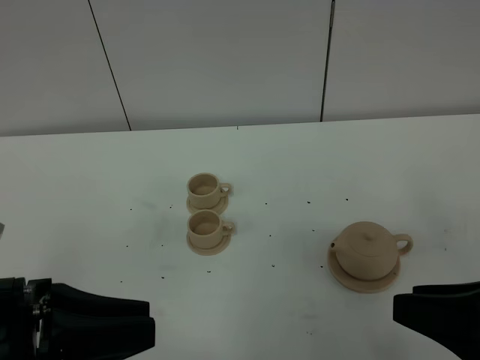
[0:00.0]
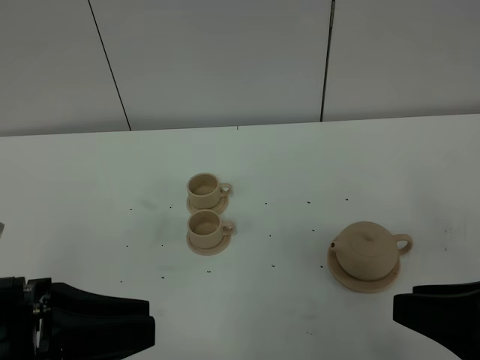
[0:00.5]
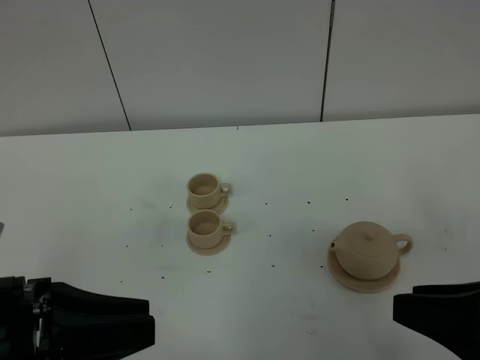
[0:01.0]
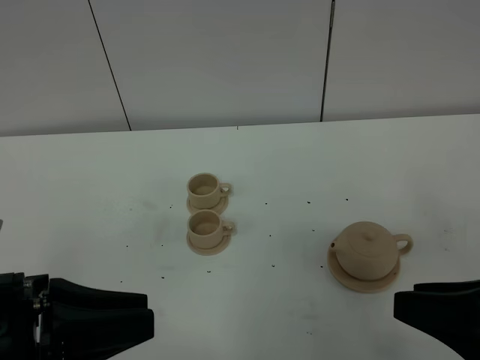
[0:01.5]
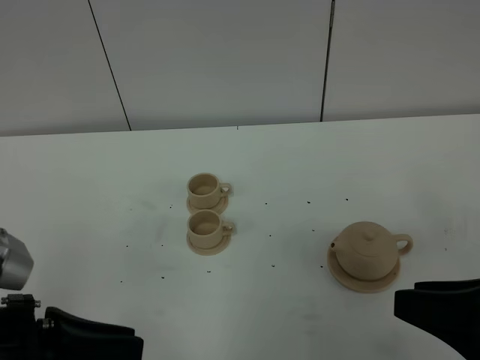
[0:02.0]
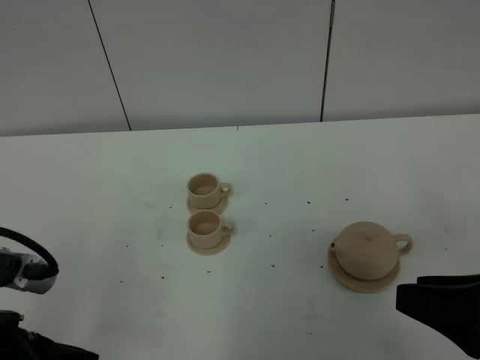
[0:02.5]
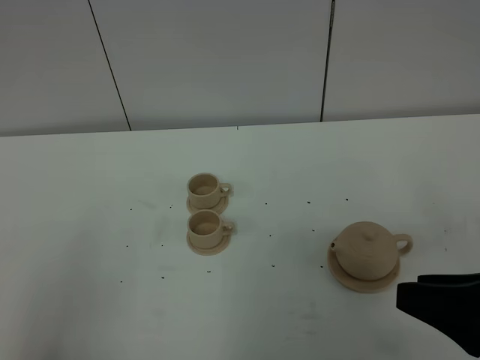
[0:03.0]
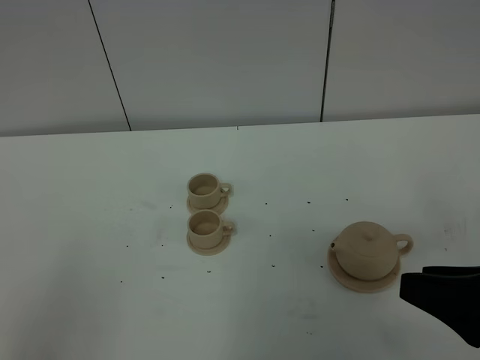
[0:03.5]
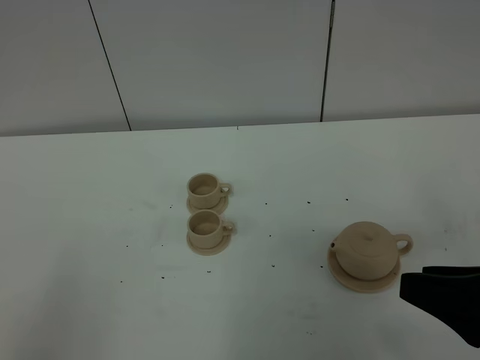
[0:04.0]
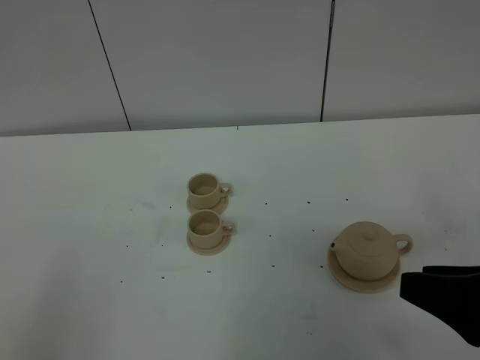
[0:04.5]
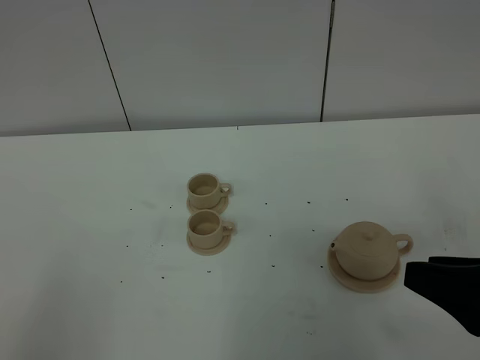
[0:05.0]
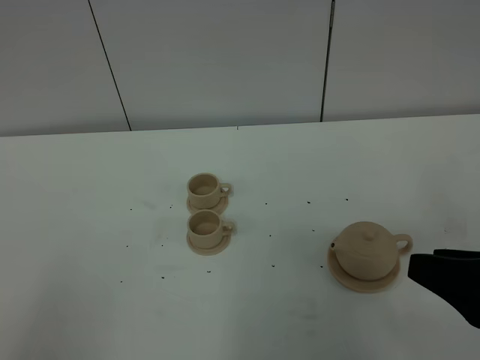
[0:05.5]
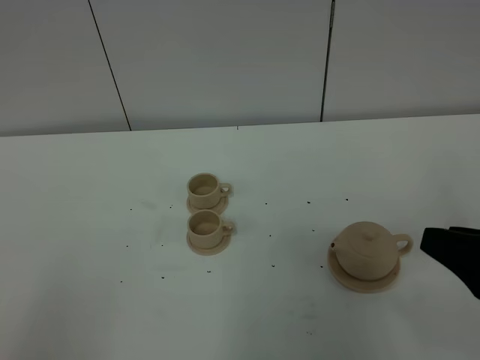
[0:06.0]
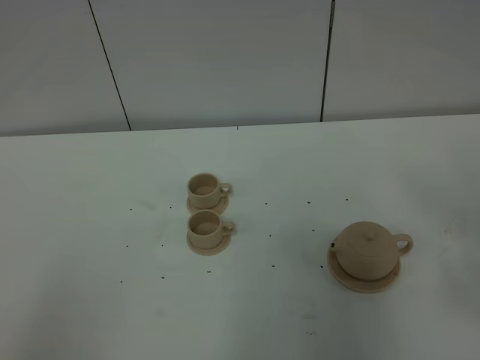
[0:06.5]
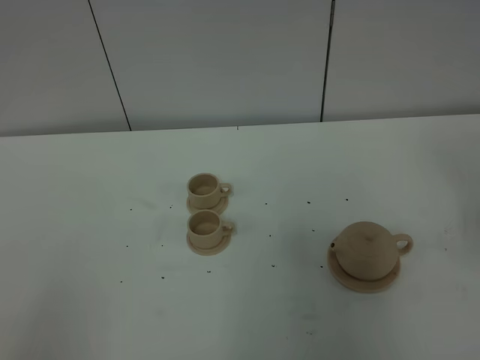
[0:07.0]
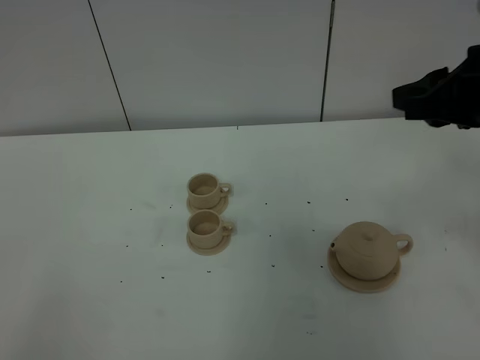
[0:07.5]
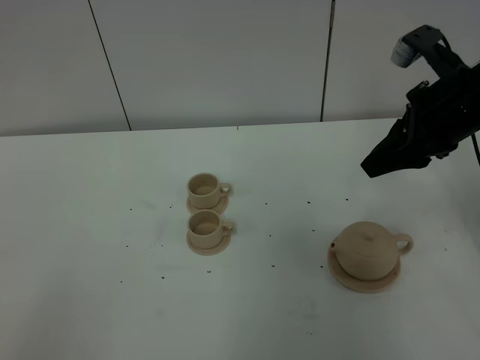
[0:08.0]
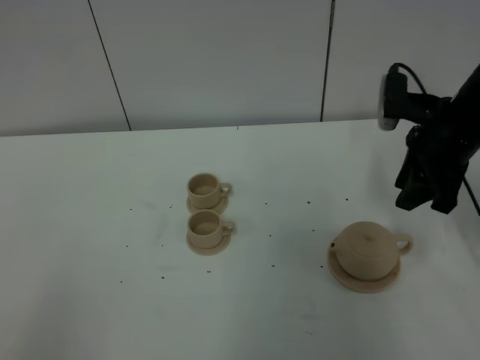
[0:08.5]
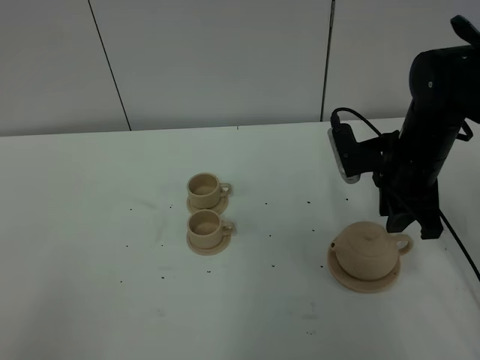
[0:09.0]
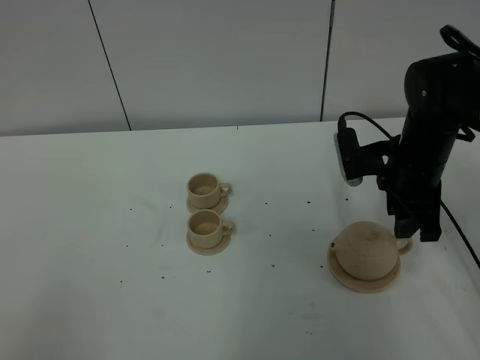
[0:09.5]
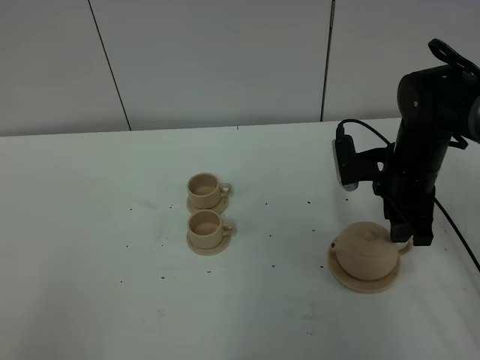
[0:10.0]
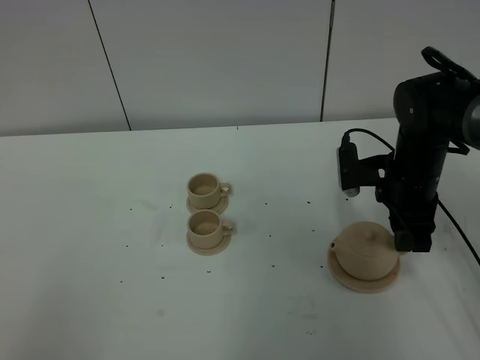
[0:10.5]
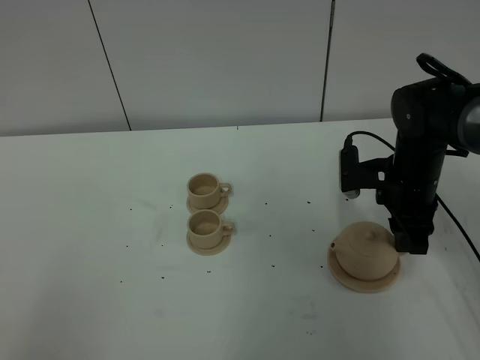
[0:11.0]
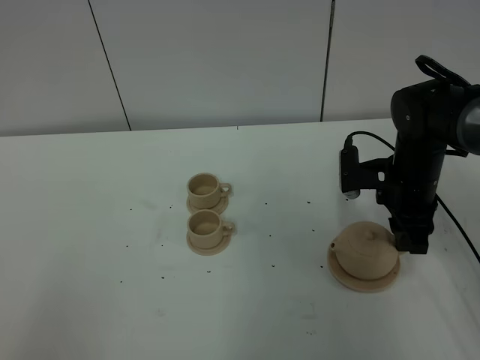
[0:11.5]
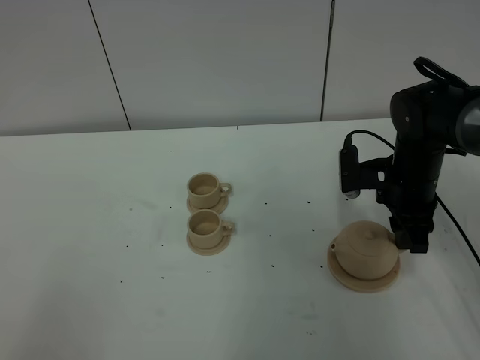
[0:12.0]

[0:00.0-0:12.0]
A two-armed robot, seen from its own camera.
Task of the whole recording: grasp the brown teapot and pour the tea into the two brown teacups one by one, put the brown teapot back in its original place.
0:00.0 to 0:02.0: The left gripper closes its fingers.
0:02.0 to 0:04.0: The left gripper is displaced backward and to the left by about 10 cm, and closes its fingers.
0:04.0 to 0:06.0: The grippers move only a little.
0:06.0 to 0:08.0: The right gripper is displaced forward by roughly 20 cm.
0:08.0 to 0:10.0: The right gripper shifts approximately 10 cm downward.
0:10.0 to 0:12.0: There are only small adjustments of the grippers.

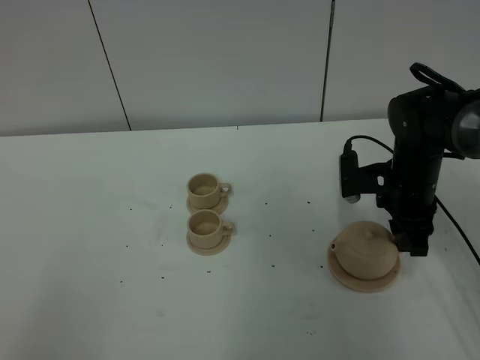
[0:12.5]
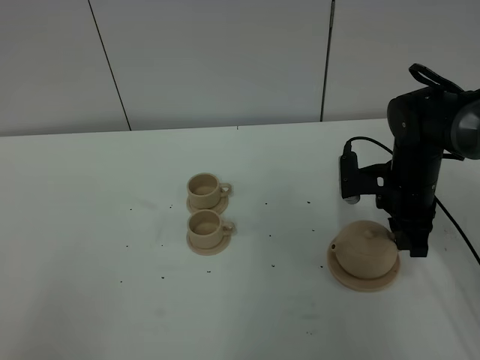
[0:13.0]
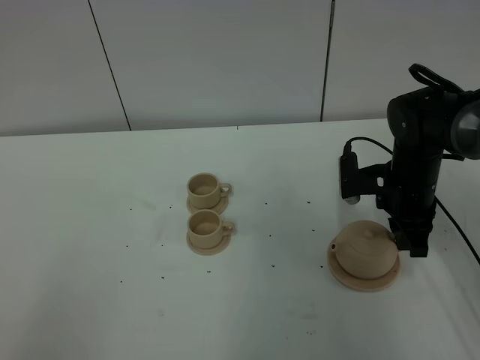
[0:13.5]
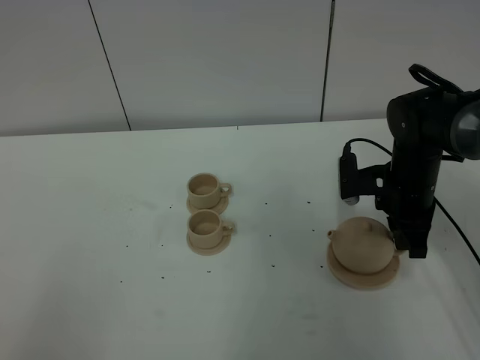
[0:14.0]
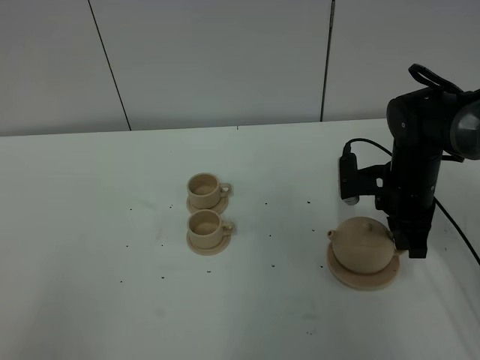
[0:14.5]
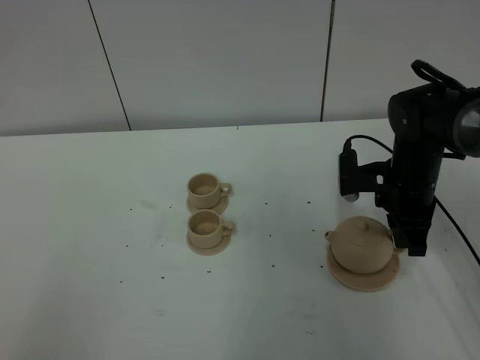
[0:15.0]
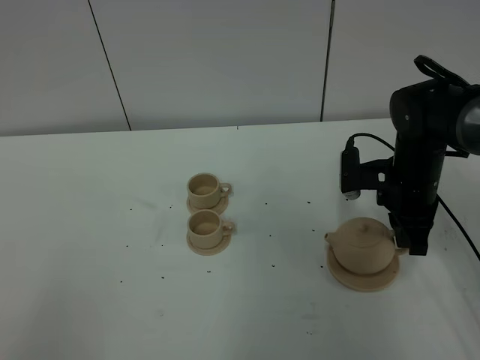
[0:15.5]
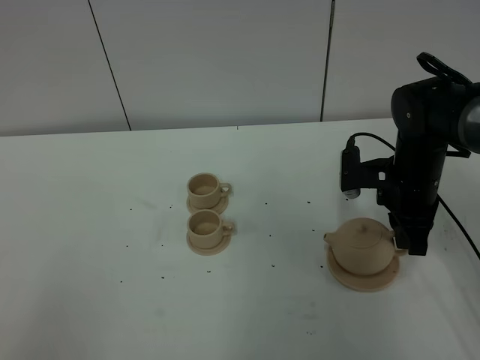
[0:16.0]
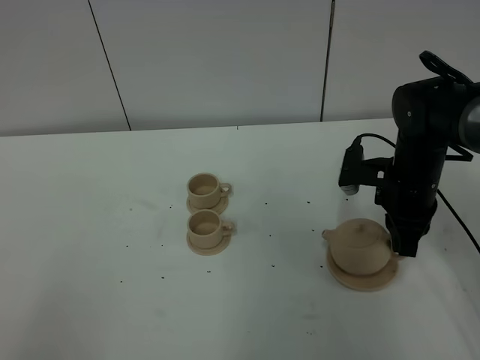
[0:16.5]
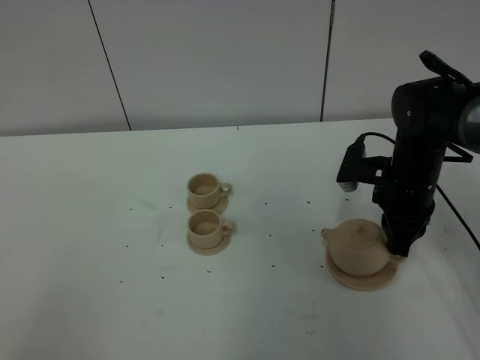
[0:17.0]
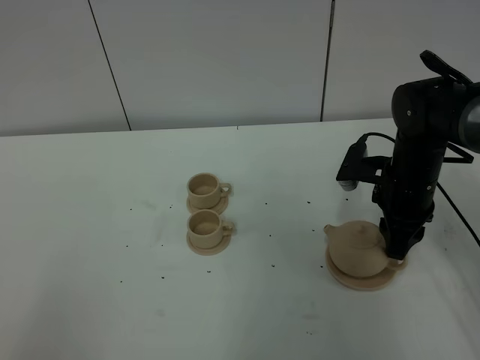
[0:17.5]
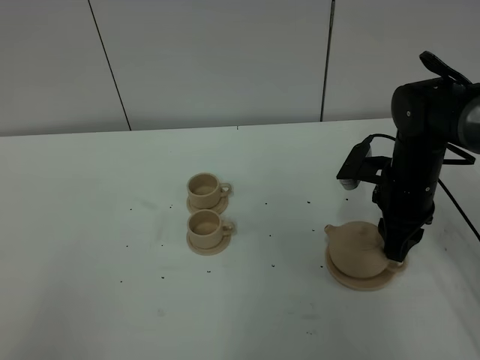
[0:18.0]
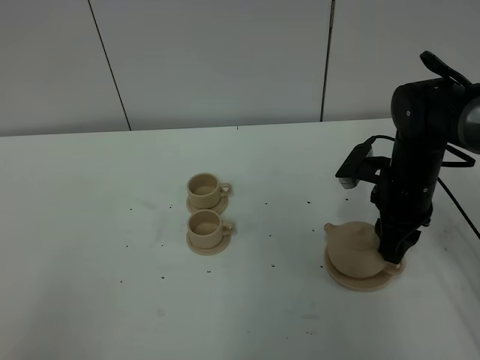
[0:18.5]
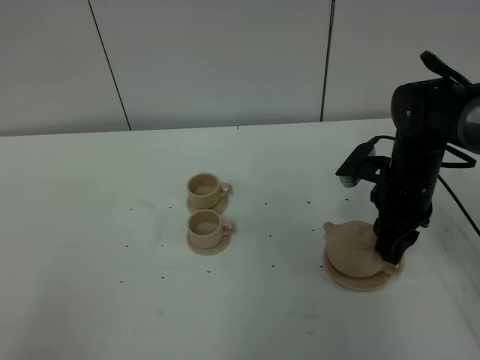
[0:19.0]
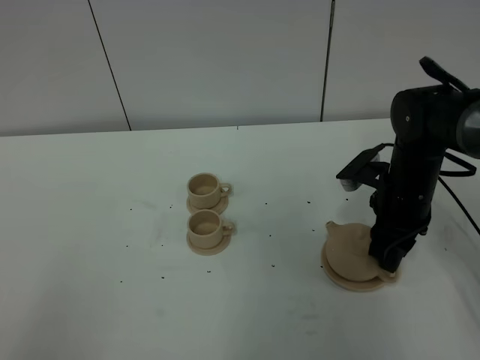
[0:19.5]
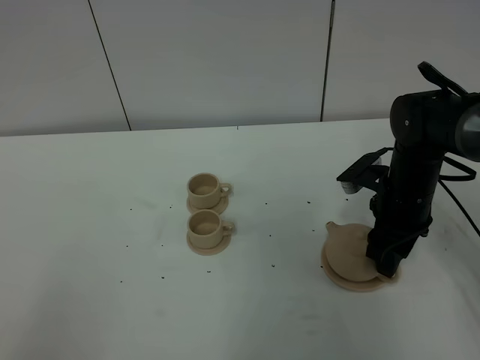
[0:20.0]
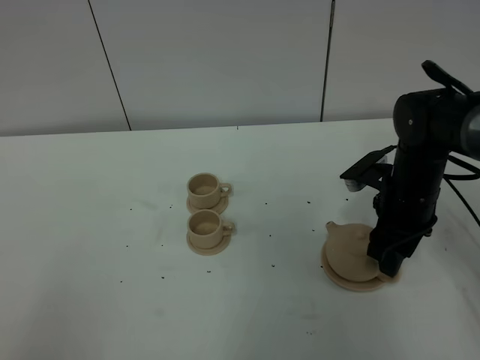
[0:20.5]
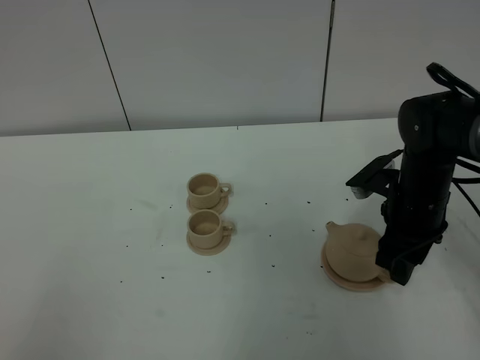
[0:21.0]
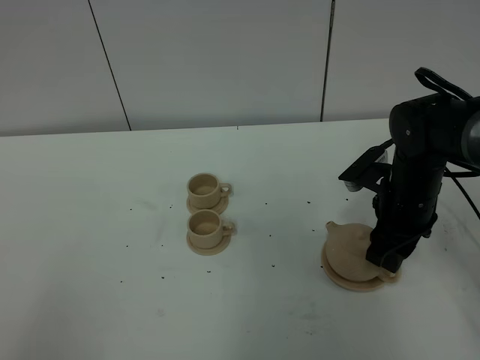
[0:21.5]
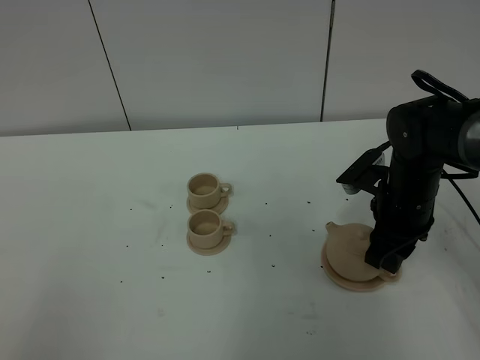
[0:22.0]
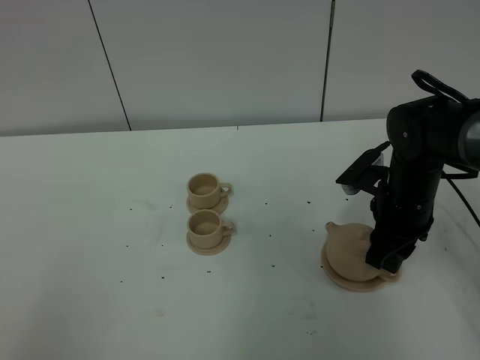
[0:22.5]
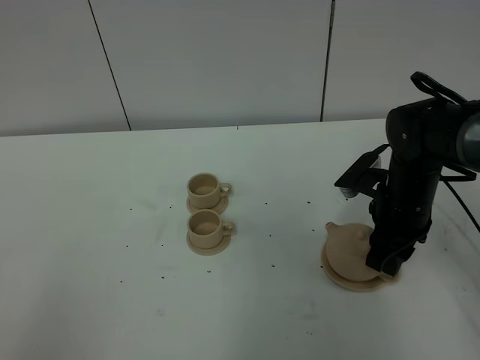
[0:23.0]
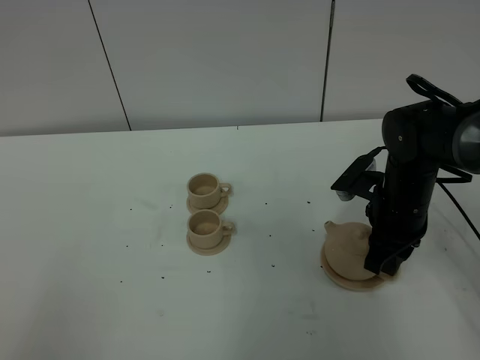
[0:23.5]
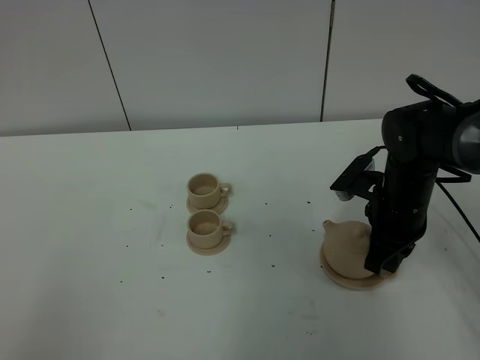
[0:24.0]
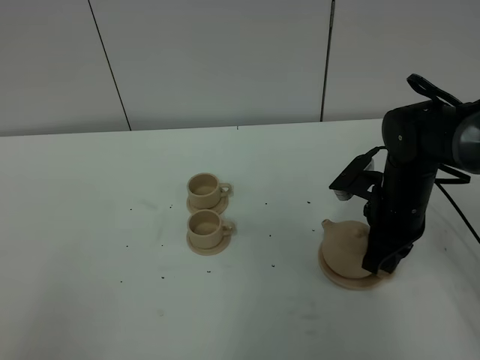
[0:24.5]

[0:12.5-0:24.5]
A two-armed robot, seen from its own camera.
Task of the whole recording: grasp the brown teapot and pour the tea into the two brown teacups one by one, put the brown teapot back in its original place.
0:12.5 to 0:14.5: The right gripper closes its fingers.
0:14.5 to 0:16.5: The grippers move only a little.
0:16.5 to 0:18.5: The right gripper opens up.
0:18.5 to 0:22.5: The grippers stay close to where they were, moving slightly.
0:22.5 to 0:24.5: The right gripper closes up.

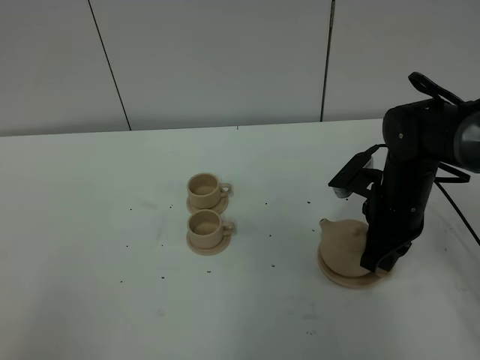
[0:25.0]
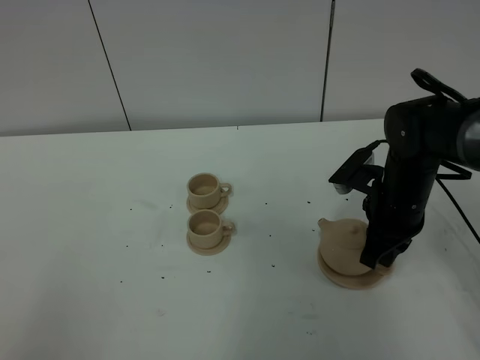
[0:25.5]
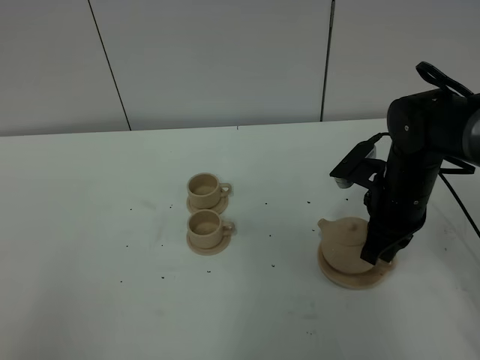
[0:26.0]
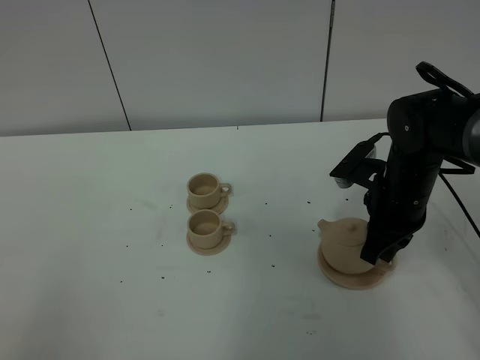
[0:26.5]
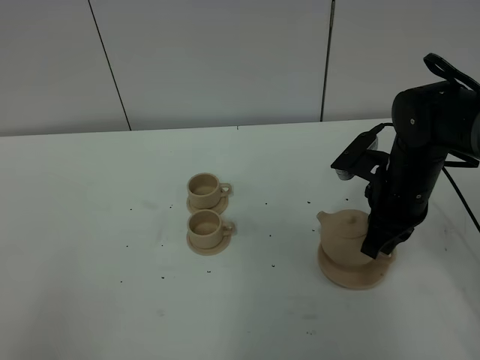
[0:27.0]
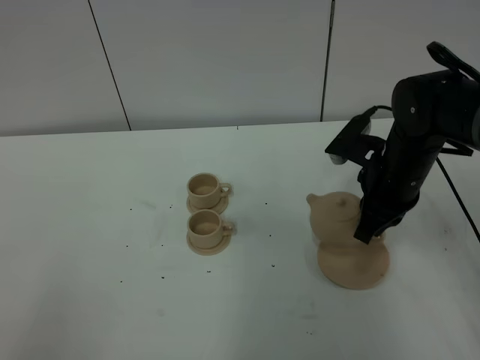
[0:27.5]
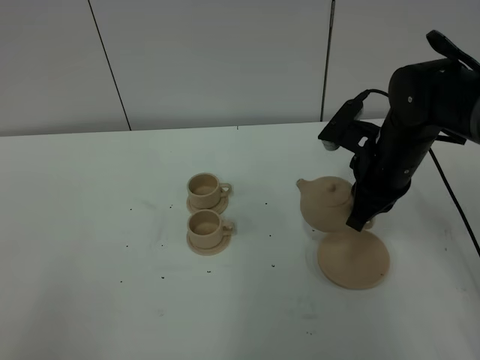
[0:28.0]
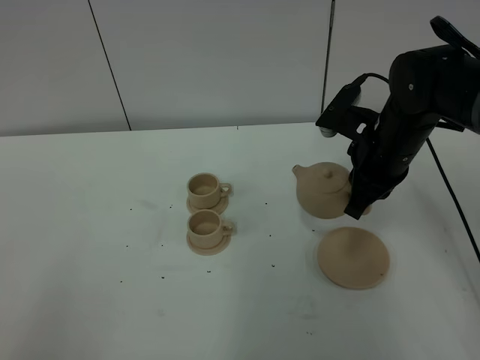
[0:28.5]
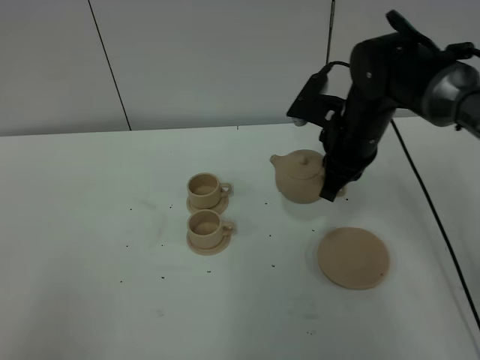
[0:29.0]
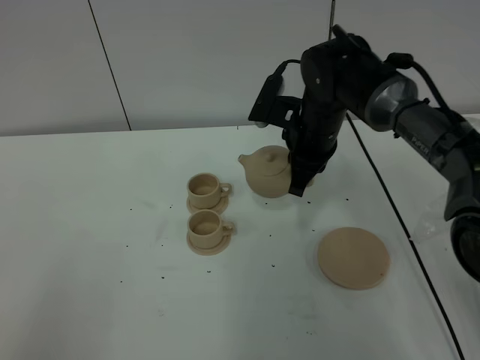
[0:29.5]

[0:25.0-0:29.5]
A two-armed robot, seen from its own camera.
Task of the whole recording: grasp the brown teapot and pour the tea into the two brown teacups one by one, put the brown teapot back in its original place.
0:25.0 to 0:27.0: The grippers make only small movements.
0:27.0 to 0:29.5: The right gripper is displaced to the left and forward by about 15 cm.
